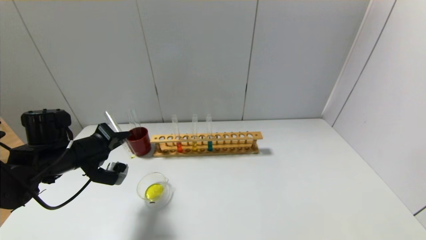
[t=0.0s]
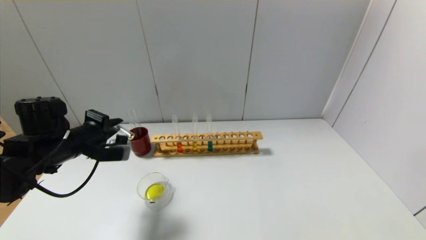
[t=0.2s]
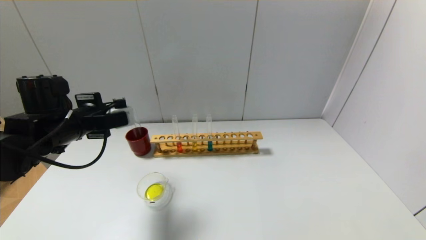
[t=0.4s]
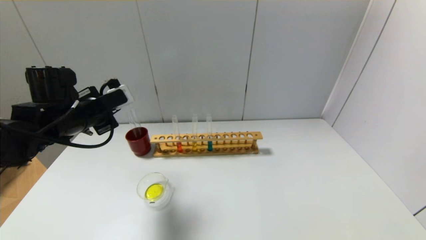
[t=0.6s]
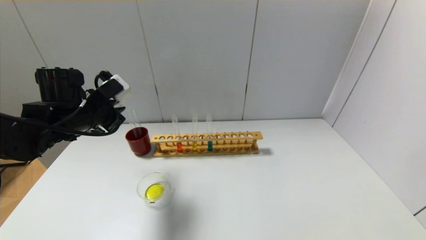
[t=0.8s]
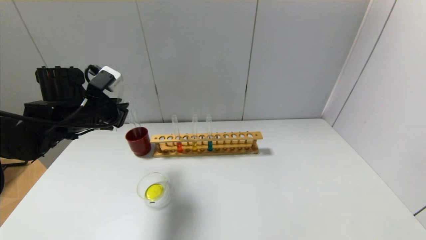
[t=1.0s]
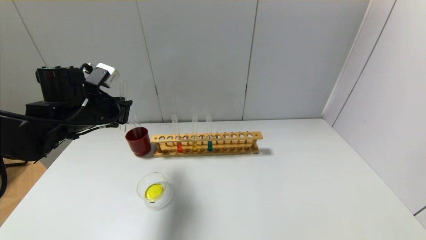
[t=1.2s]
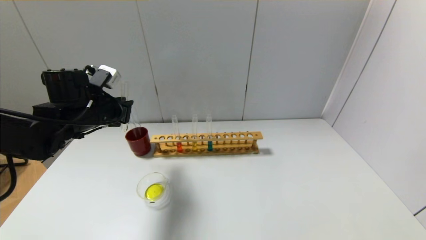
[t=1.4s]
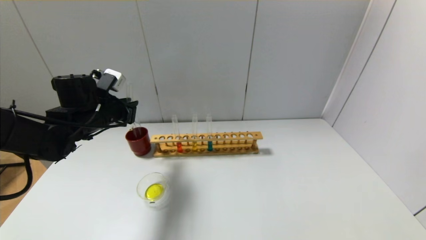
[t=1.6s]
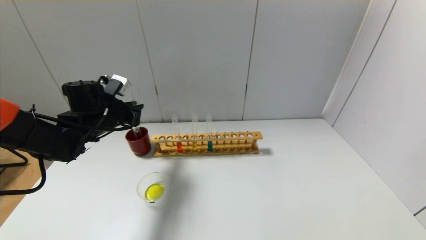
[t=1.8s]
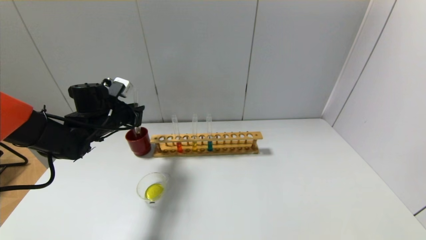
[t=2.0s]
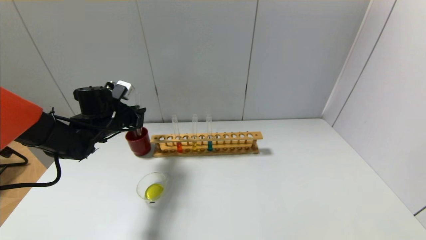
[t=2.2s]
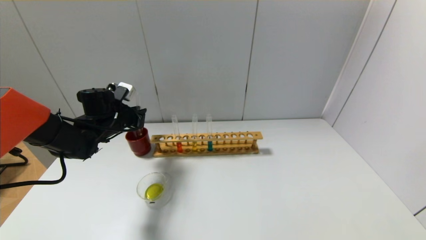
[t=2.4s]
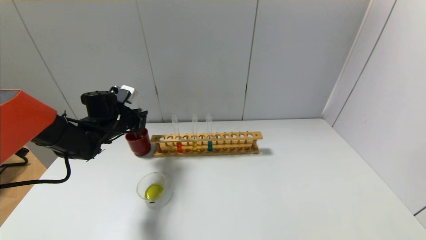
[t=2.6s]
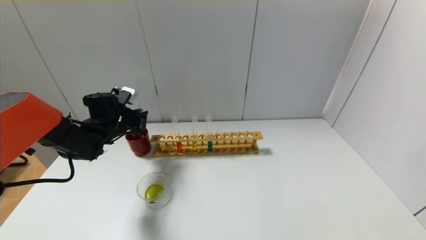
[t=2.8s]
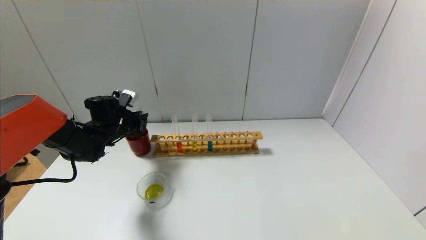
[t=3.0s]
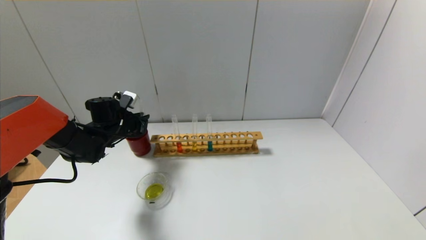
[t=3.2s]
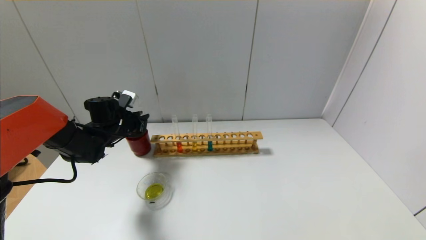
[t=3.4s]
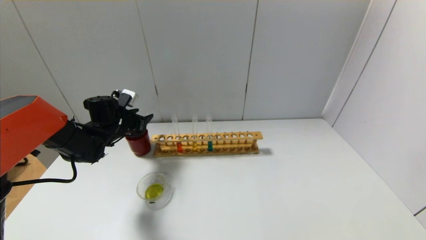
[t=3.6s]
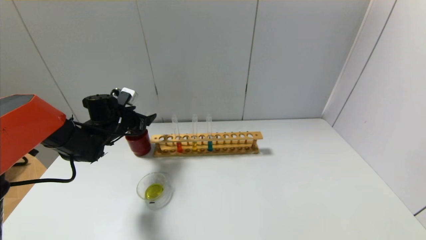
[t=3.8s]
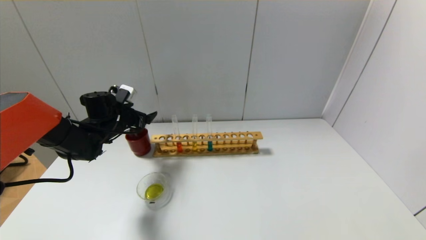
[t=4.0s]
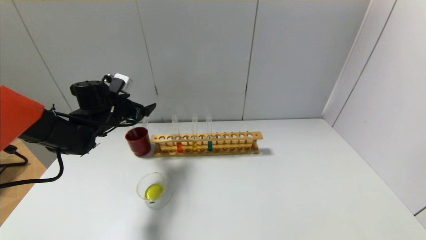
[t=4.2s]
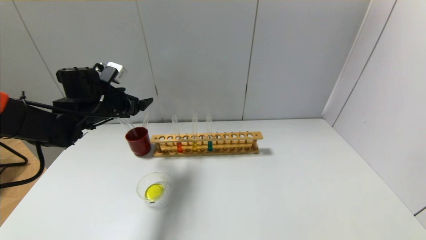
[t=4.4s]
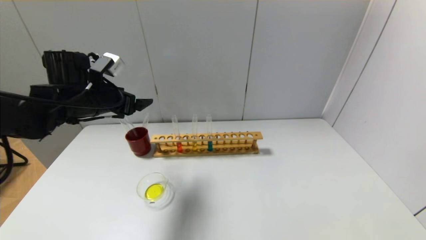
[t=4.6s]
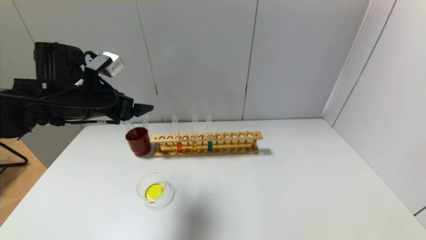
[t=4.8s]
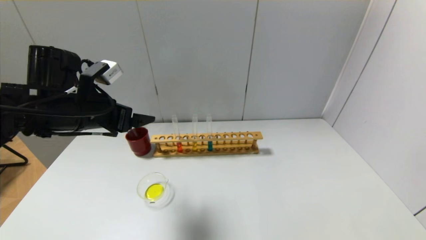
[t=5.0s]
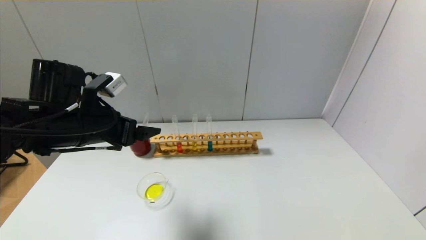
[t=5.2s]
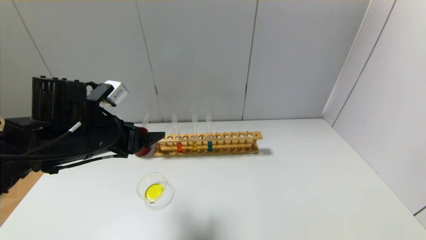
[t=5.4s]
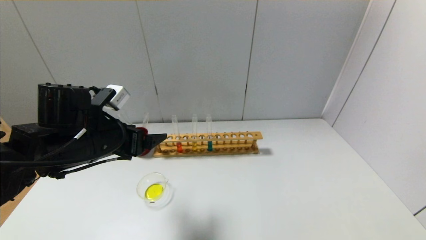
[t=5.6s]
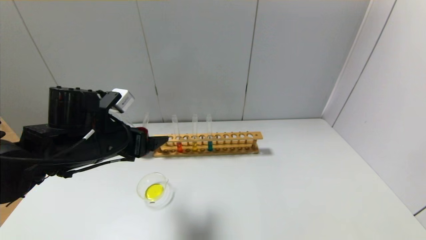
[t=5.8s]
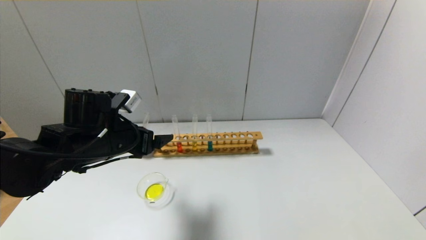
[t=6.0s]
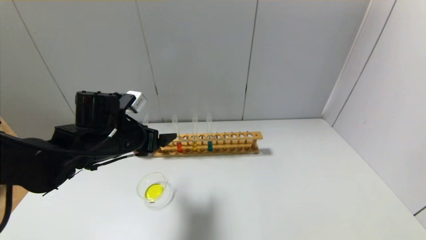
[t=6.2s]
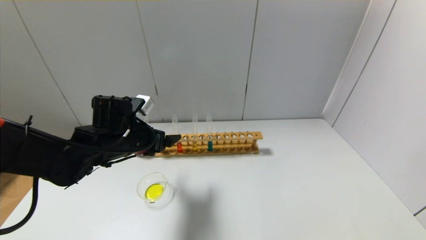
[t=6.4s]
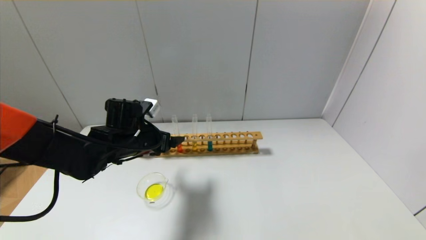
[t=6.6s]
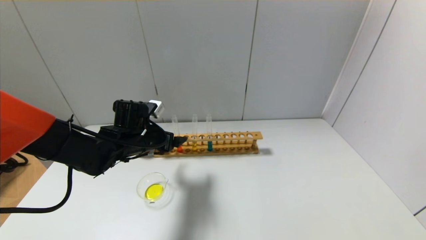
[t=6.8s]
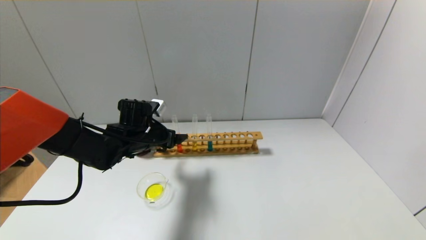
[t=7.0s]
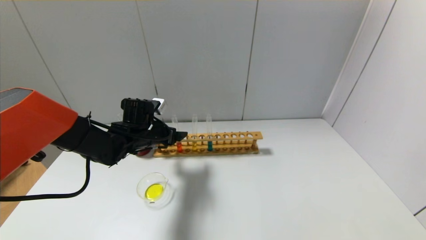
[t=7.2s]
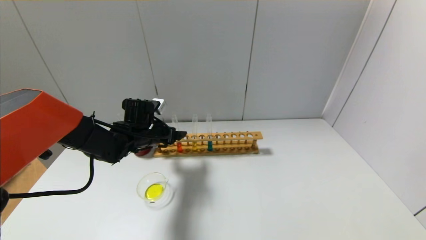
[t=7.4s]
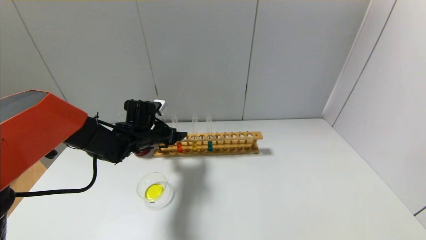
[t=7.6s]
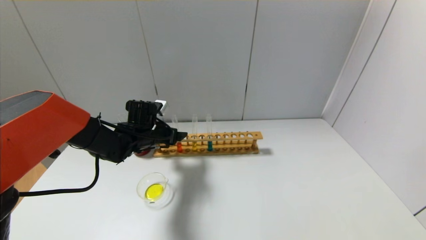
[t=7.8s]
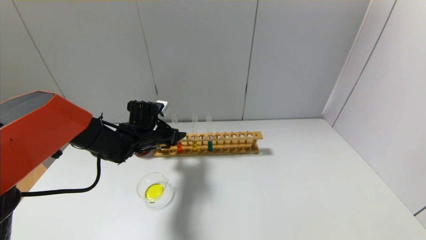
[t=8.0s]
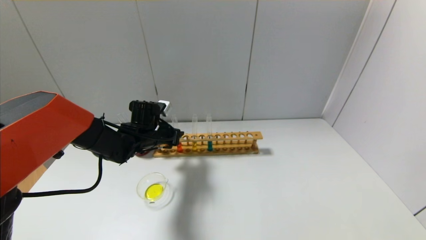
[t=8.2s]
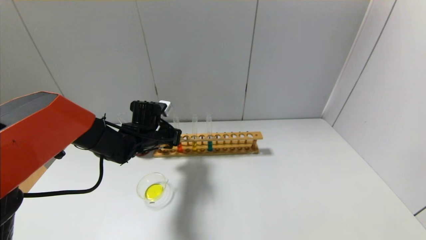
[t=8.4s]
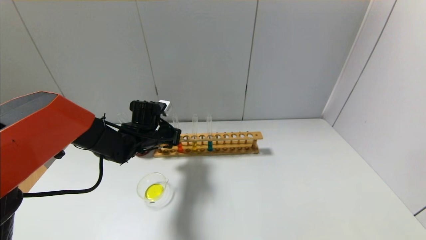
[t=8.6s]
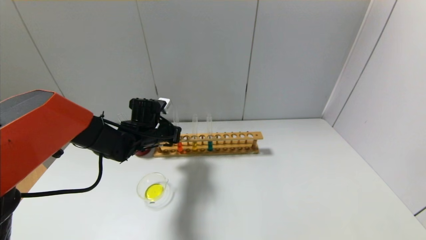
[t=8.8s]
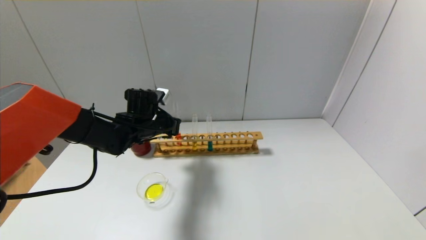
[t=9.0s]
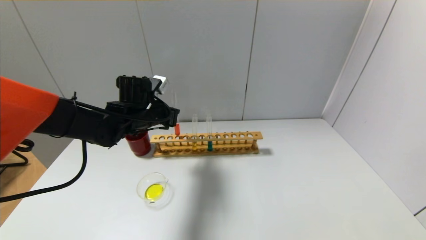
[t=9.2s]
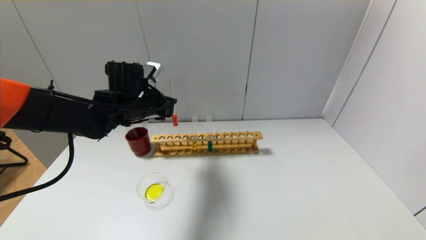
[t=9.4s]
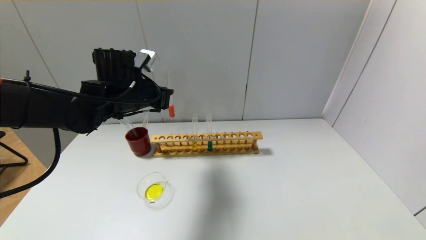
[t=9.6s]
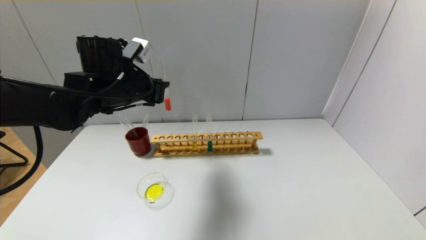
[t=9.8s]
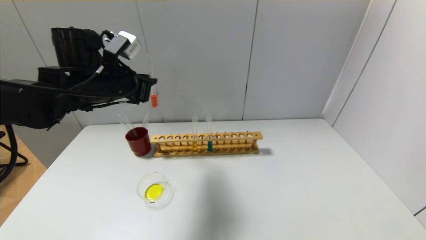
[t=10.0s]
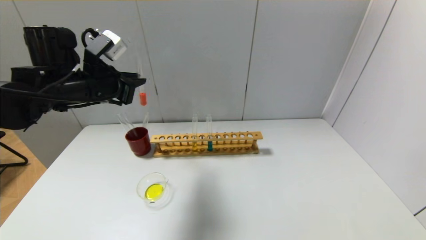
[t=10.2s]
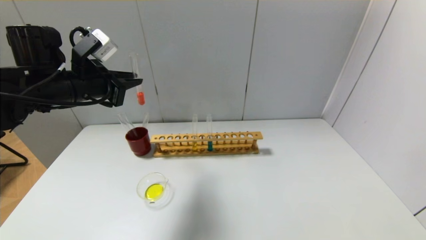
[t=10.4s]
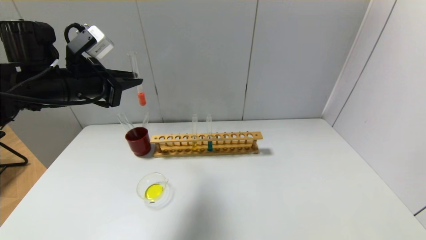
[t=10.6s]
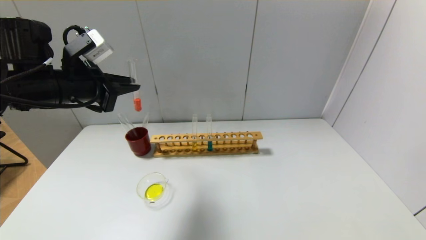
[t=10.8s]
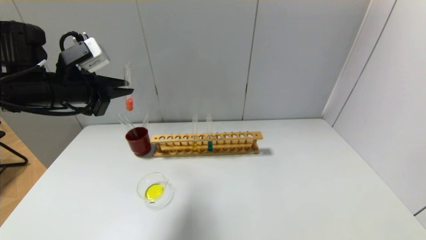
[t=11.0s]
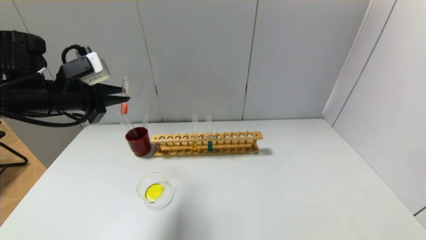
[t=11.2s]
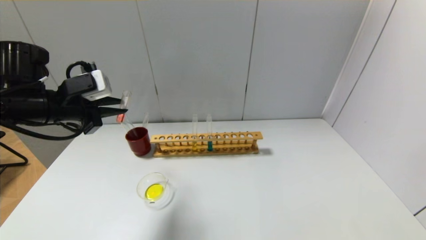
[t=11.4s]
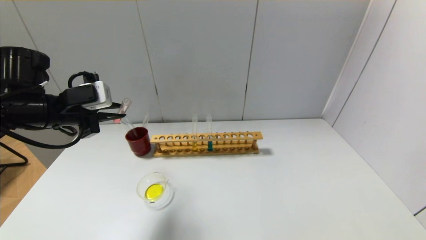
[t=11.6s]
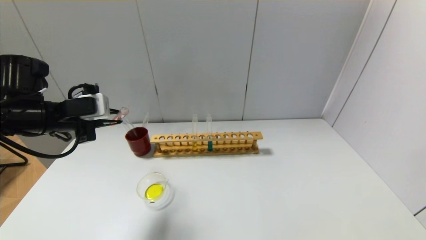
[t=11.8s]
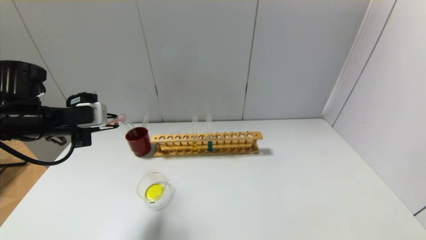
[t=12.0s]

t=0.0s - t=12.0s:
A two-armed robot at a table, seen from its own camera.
Step, t=0.2s - t=3.6s: Place the test tube into the brown cup with the left gripper.
Step, t=3.8s - t=8.6s: Grasp the red reagent with the left gripper.
t=0.0s - t=1.6s: The left gripper is displaced forward by about 5 cm.
t=1.6s - t=3.0s: The left gripper travels downward and forward by some 10 cm.
t=3.0s - t=4.4s: The left gripper moves upward, some 10 cm, and opens up.
t=4.4s - t=6.0s: The left gripper heads backward and to the right, covering about 15 cm.
t=6.0s - t=7.6s: The left gripper heads forward and downward, covering about 15 cm.
t=7.6s - t=9.0s: The left gripper closes.
t=9.0s - t=10.4s: The left gripper heads upward, to the left and backward, covering some 20 cm.
t=10.4s - t=12.0s: The left gripper is displaced downward and to the left by some 10 cm.

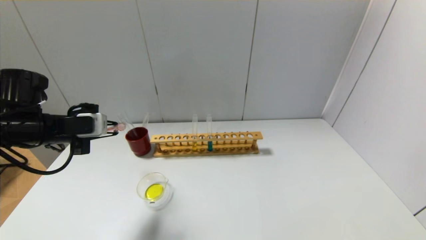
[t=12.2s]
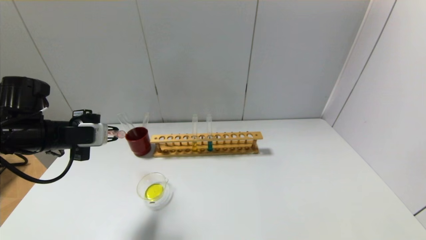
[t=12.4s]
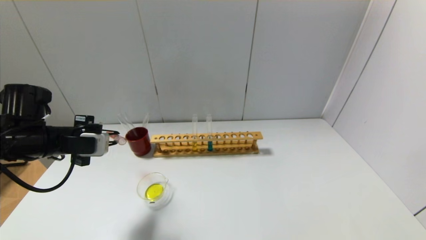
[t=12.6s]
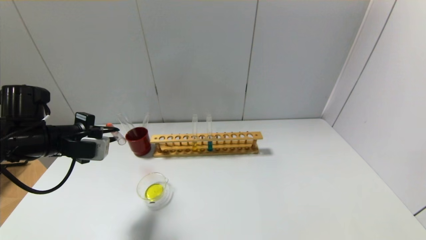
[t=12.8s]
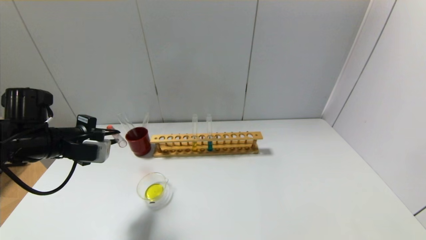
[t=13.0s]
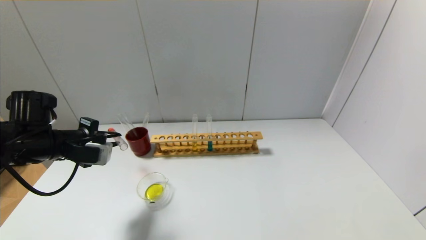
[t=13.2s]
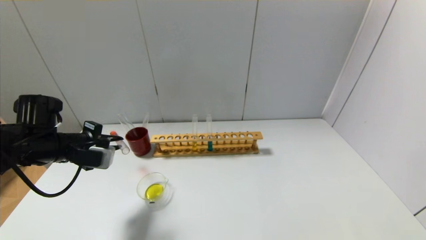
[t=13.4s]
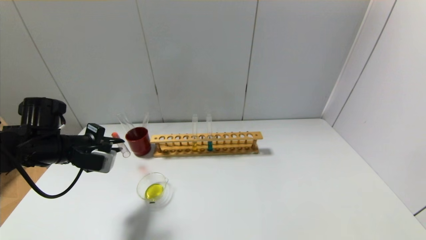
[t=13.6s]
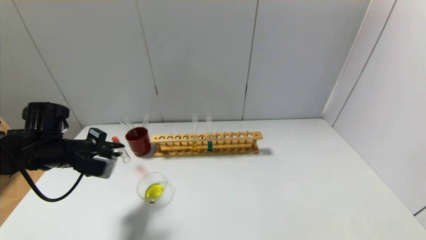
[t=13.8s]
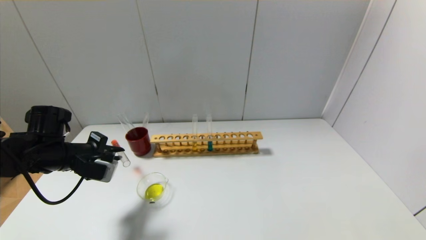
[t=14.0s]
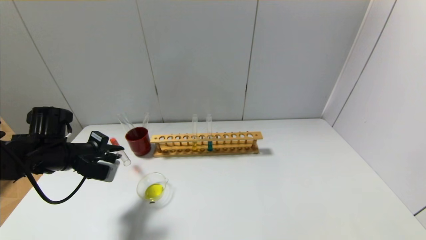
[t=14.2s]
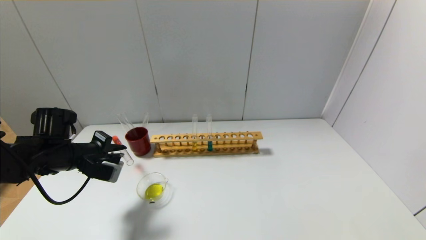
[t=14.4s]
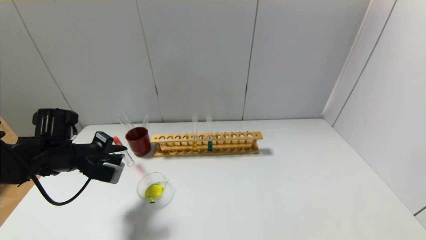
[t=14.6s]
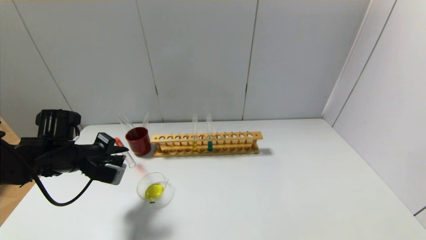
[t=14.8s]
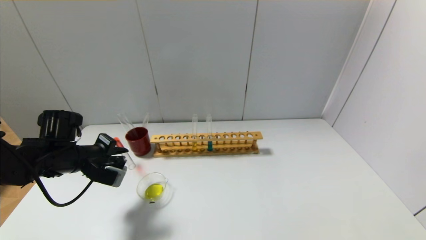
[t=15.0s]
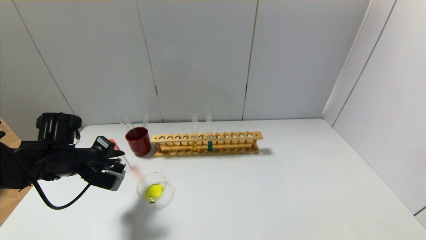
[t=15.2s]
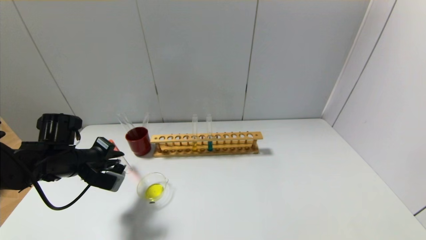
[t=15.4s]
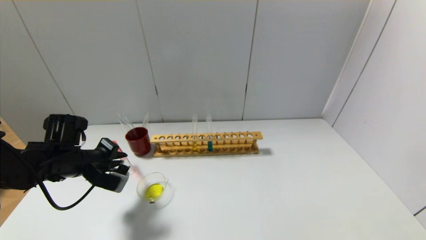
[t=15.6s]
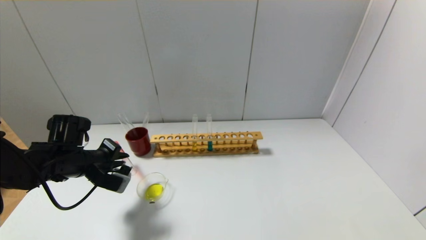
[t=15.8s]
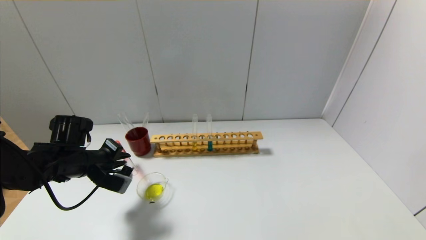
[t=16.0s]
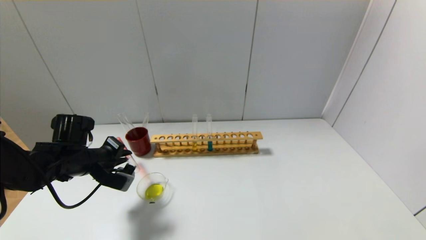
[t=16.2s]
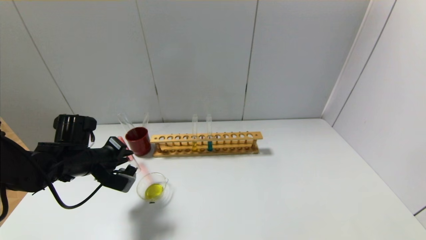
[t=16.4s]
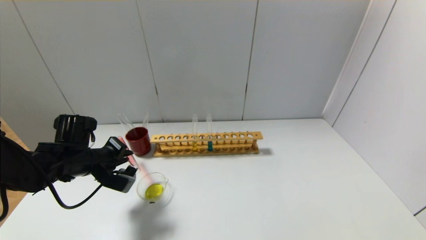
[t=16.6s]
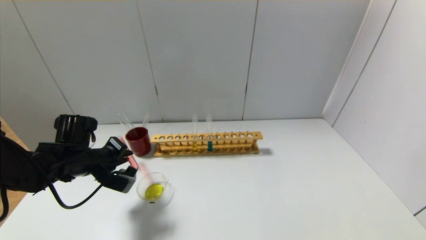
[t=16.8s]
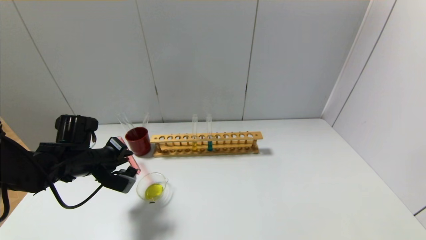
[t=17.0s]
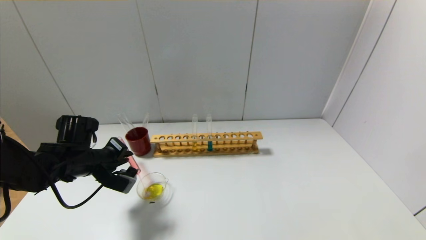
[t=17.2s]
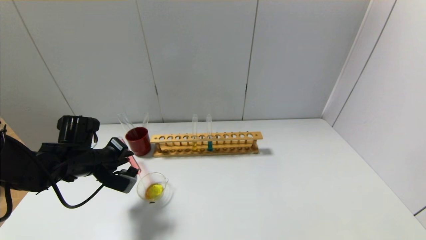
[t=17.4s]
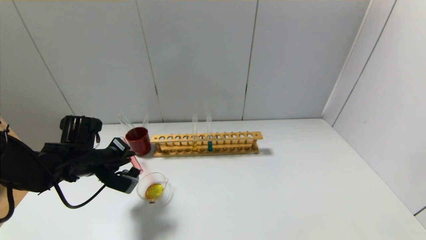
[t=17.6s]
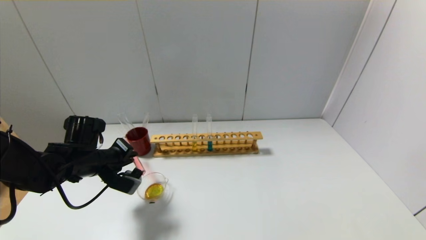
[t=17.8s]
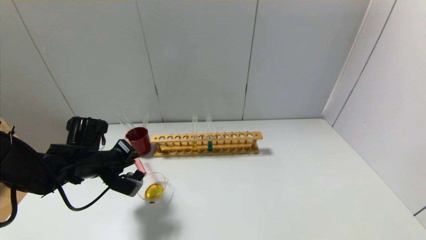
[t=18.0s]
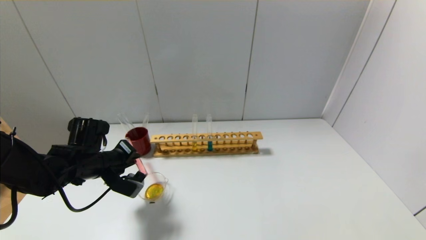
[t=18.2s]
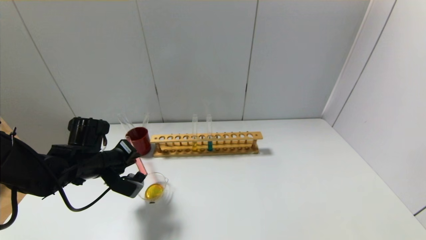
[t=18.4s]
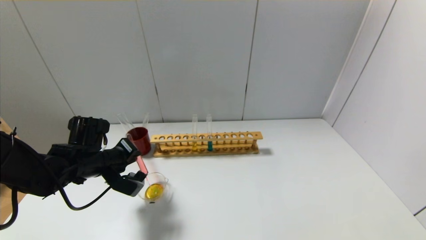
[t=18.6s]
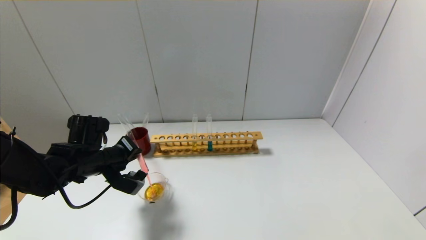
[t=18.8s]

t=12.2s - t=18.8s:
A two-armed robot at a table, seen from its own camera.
t=12.2s - t=13.8s: The left gripper moves downward, approximately 5 cm.
t=13.8s - t=17.2s: The grippers stay close to where they were, moving slightly.
t=17.2s - t=18.8s: The grippers make only small movements.
